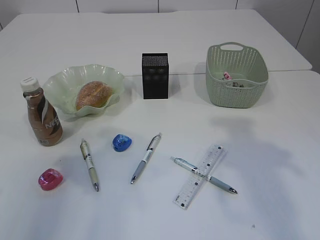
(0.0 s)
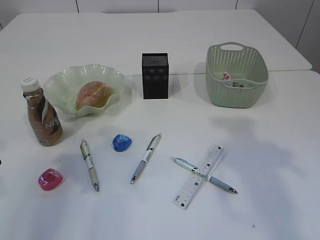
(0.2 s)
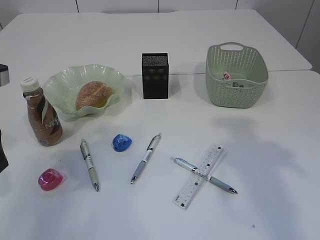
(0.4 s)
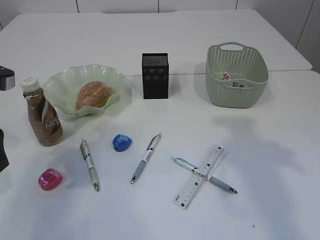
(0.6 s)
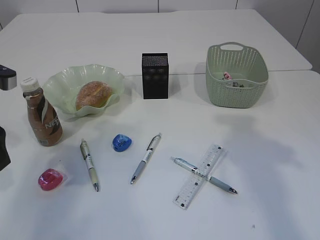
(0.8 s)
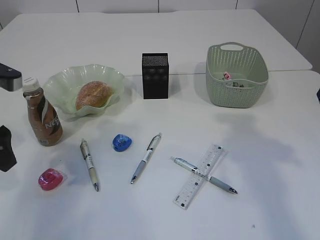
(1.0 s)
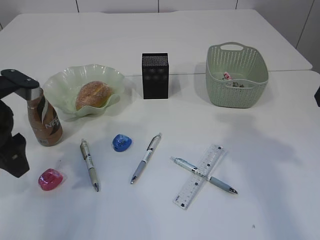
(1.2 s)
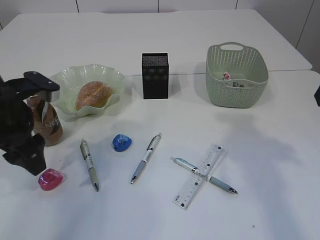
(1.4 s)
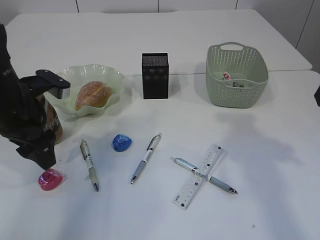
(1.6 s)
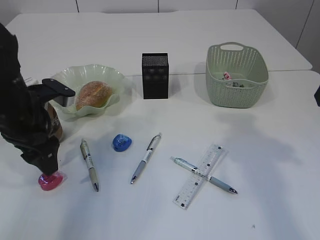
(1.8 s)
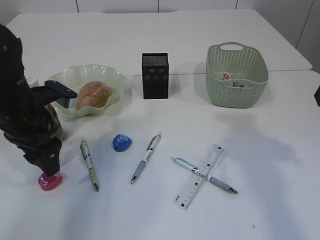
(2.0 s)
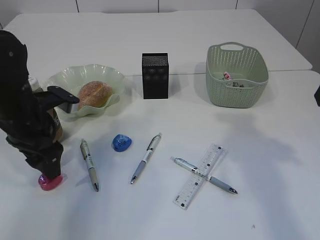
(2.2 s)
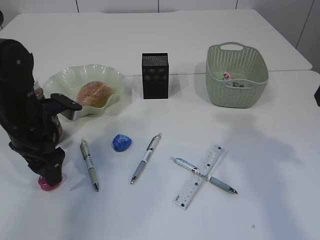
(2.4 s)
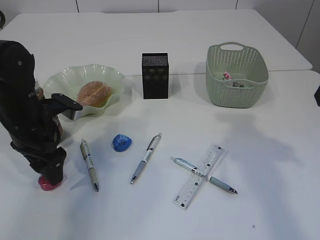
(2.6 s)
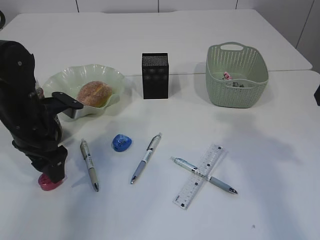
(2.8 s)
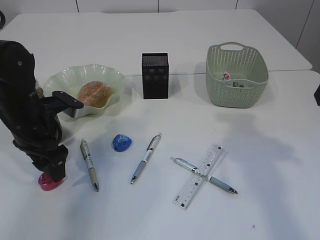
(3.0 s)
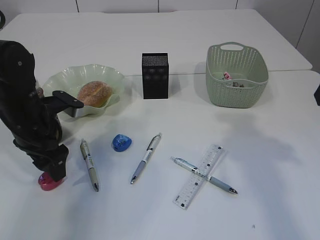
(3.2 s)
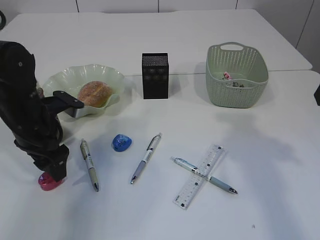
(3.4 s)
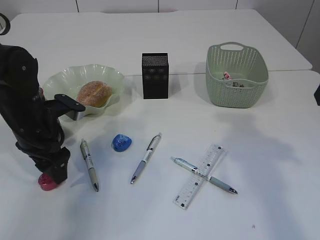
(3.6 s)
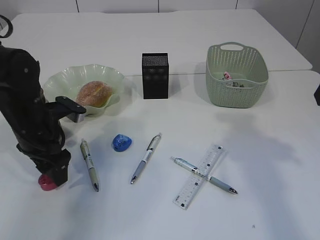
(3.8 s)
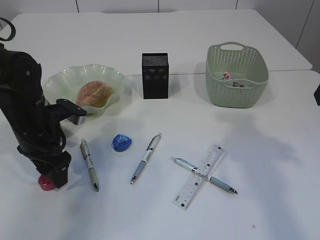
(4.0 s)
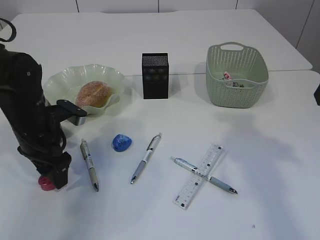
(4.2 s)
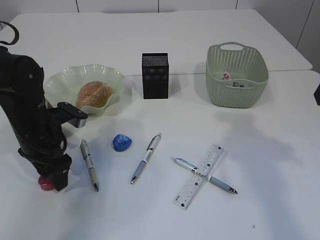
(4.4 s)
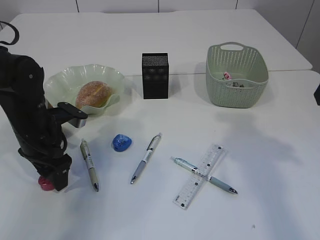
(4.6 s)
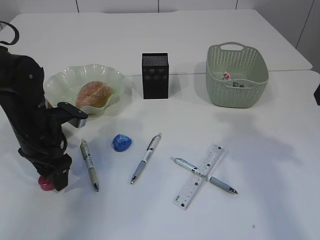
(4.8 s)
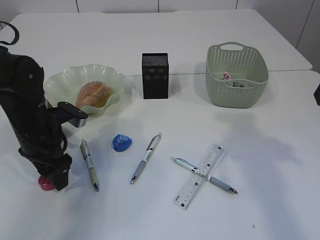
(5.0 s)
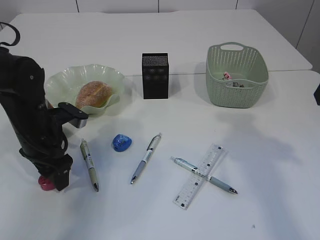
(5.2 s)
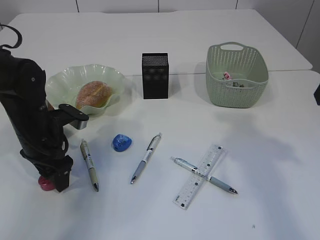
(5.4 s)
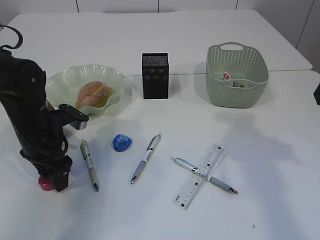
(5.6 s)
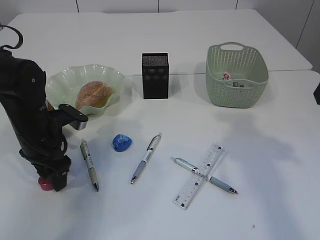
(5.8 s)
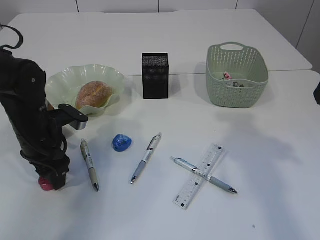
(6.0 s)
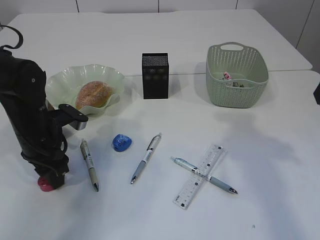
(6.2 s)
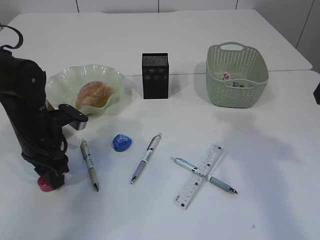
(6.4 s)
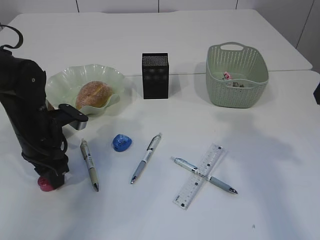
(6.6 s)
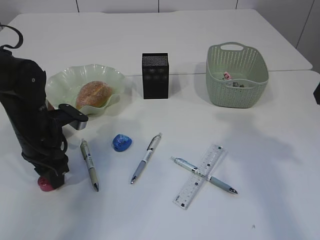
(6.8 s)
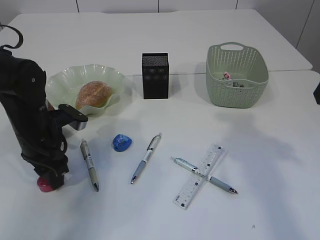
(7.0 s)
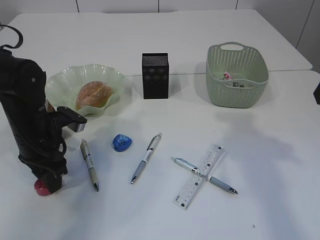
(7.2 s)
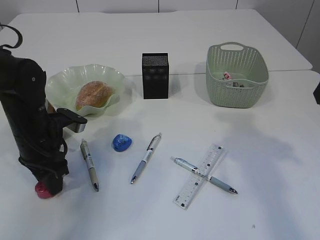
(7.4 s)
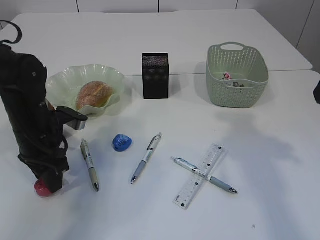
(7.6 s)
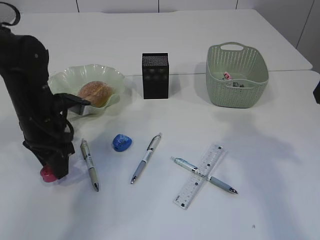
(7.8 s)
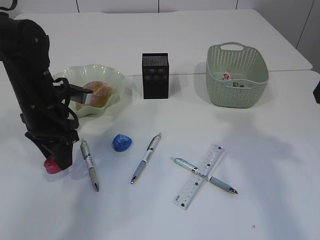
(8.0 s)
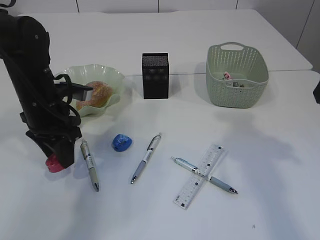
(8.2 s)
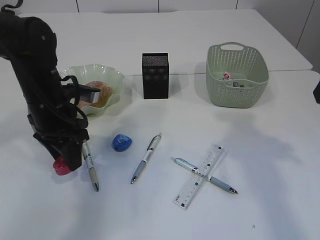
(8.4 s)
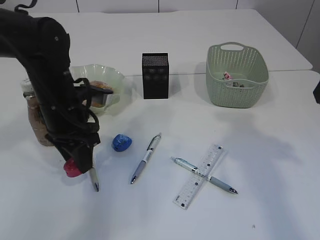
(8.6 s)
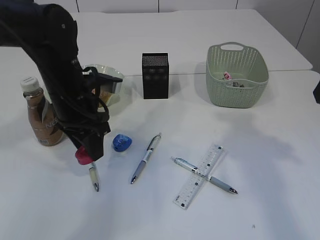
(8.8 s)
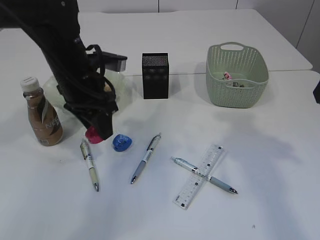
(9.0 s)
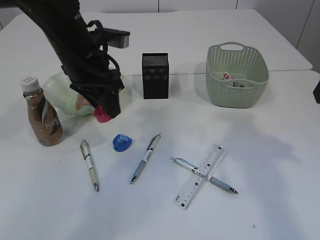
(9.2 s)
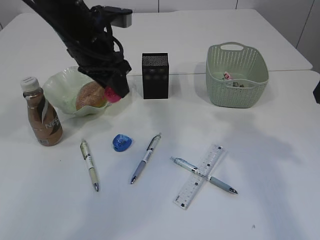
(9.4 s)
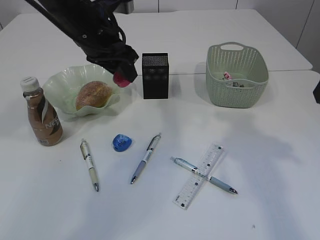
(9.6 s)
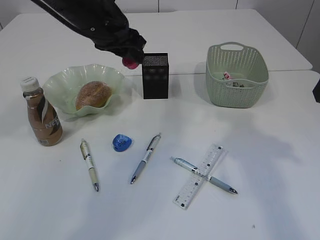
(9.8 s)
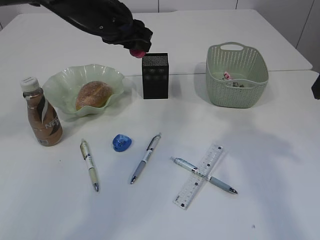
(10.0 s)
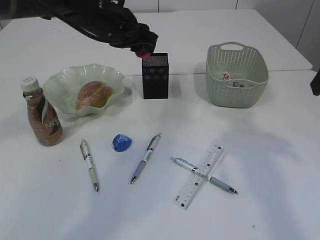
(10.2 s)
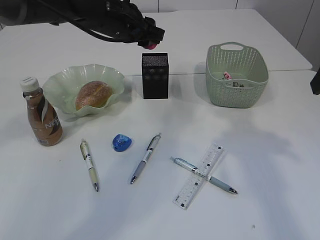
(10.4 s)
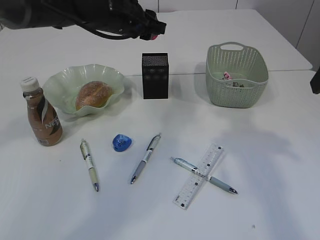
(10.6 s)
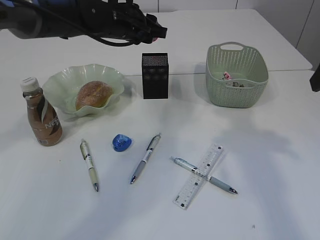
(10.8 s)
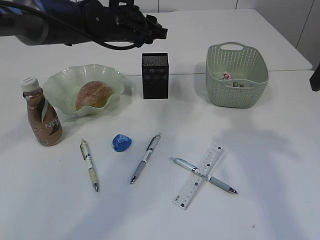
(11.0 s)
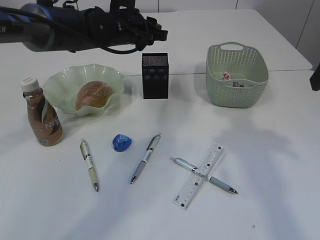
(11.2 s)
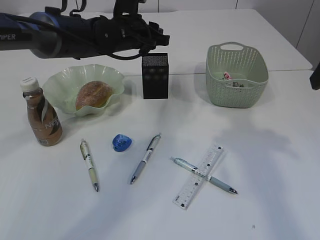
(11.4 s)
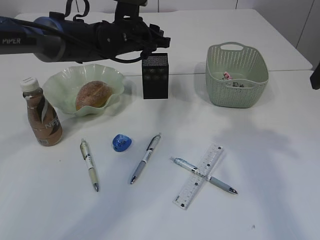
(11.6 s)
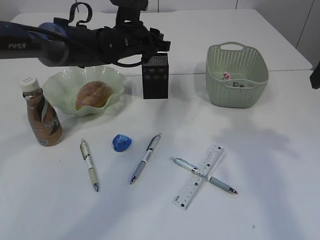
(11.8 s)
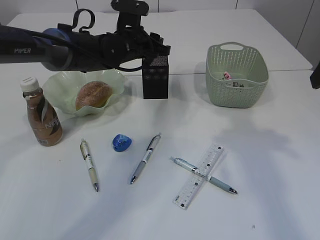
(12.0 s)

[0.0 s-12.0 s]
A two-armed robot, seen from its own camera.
Step, 0.0 to 8.8 s: Pick up the red pencil sharpener.
0.0 to 1.6 s: The left gripper heads forward, downward and to the right, covering some 15 cm.
1.6 to 3.0 s: The left gripper is displaced downward by roughly 5 cm.
3.0 to 4.4 s: There are only small adjustments of the grippers.
4.4 to 6.0 s: Both grippers stay put.
6.0 to 7.6 s: The left gripper closes its fingers.
7.6 to 9.0 s: The left gripper travels upward and to the right by about 10 cm.
9.0 to 10.4 s: The left gripper shifts approximately 10 cm forward and to the right.
10.4 to 12.0 s: The left gripper goes approximately 5 cm downward.

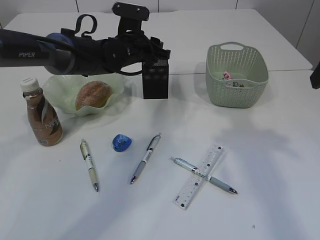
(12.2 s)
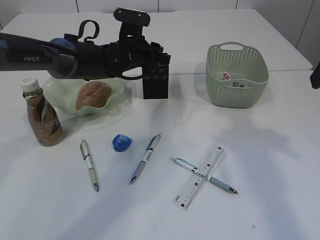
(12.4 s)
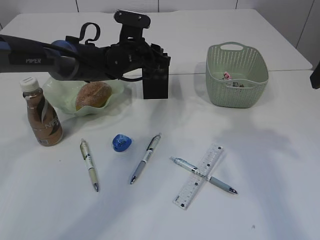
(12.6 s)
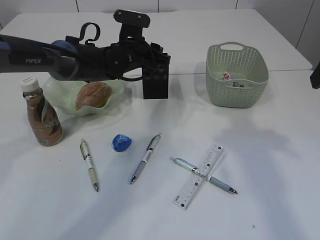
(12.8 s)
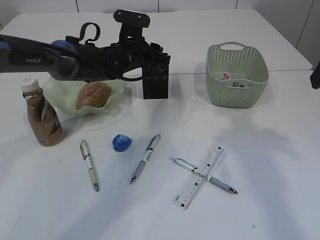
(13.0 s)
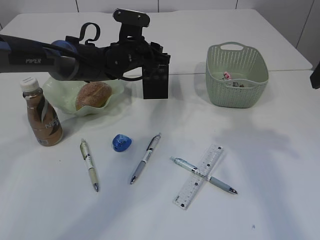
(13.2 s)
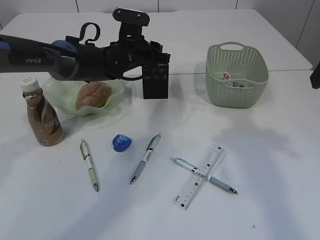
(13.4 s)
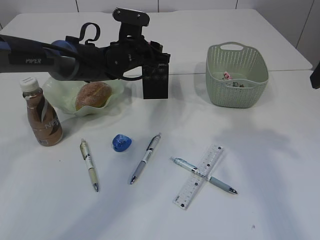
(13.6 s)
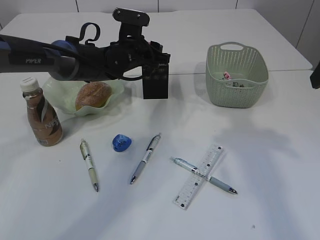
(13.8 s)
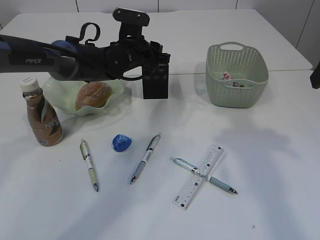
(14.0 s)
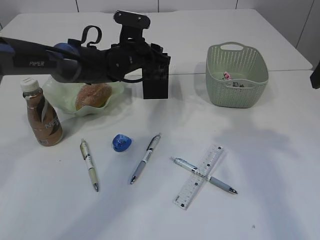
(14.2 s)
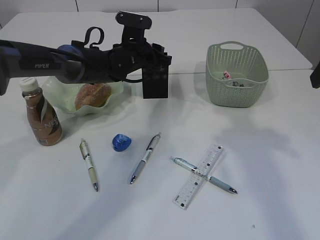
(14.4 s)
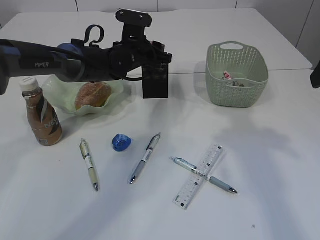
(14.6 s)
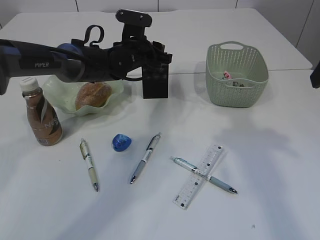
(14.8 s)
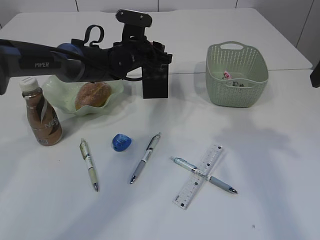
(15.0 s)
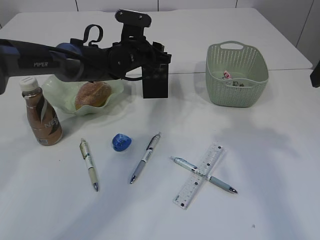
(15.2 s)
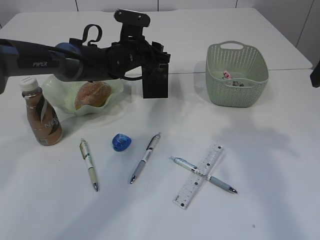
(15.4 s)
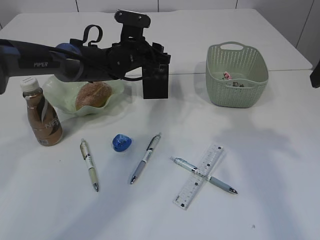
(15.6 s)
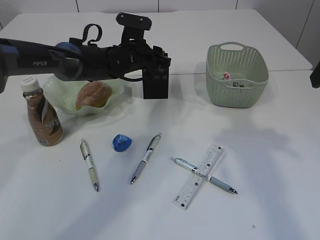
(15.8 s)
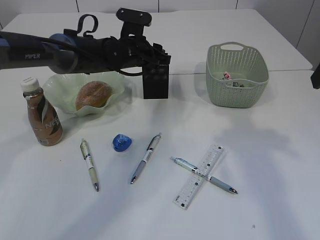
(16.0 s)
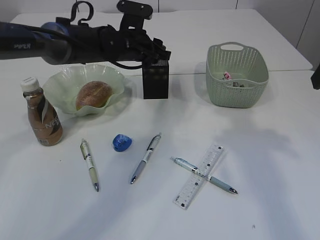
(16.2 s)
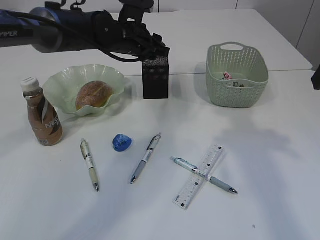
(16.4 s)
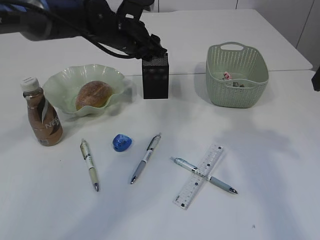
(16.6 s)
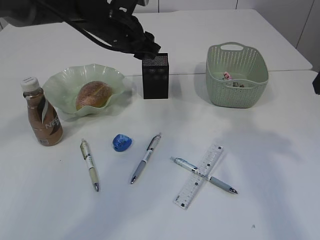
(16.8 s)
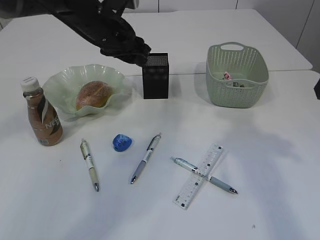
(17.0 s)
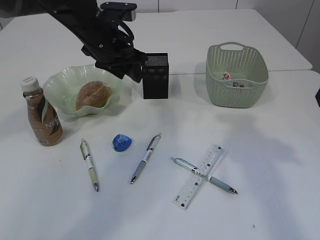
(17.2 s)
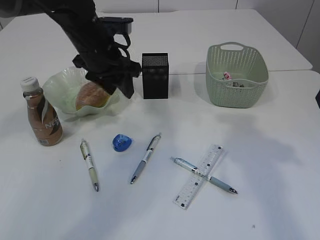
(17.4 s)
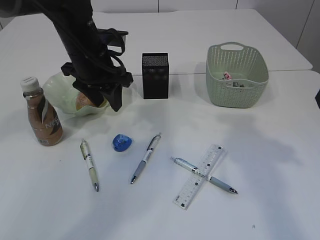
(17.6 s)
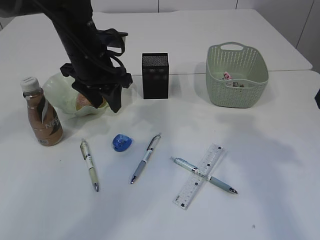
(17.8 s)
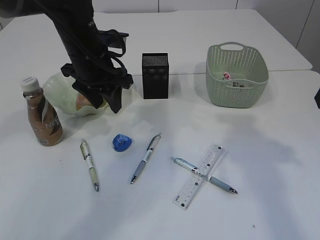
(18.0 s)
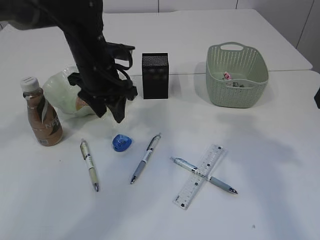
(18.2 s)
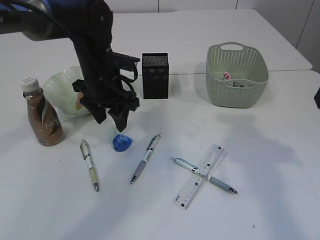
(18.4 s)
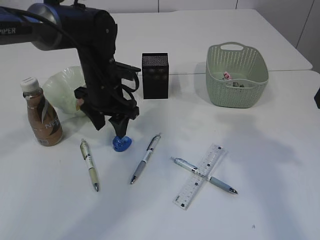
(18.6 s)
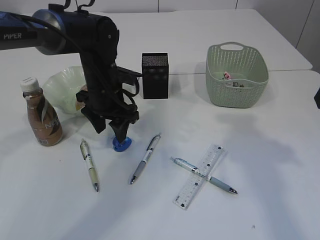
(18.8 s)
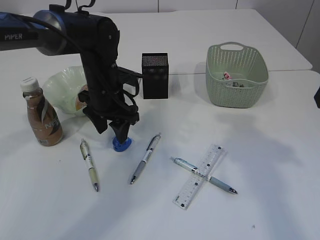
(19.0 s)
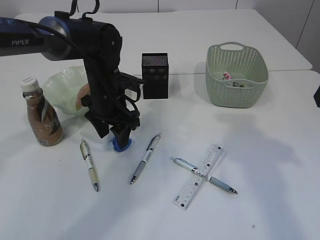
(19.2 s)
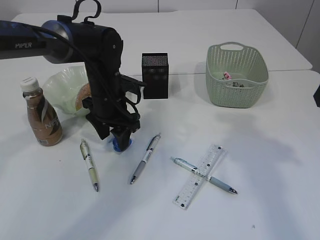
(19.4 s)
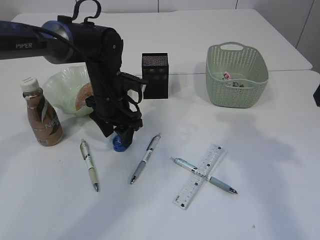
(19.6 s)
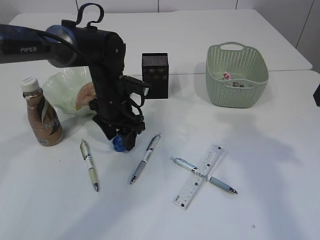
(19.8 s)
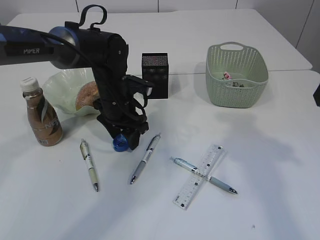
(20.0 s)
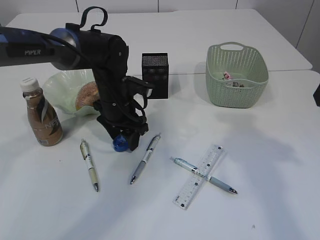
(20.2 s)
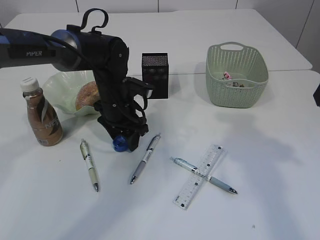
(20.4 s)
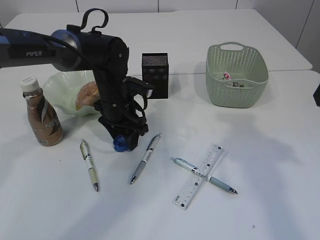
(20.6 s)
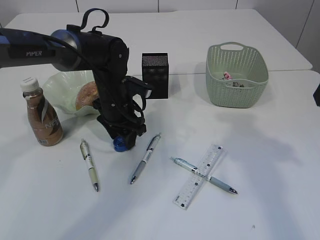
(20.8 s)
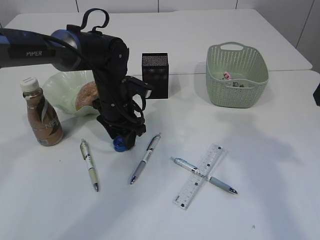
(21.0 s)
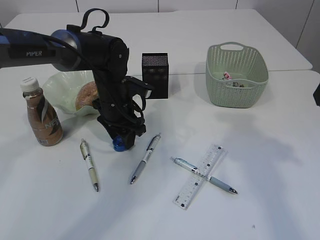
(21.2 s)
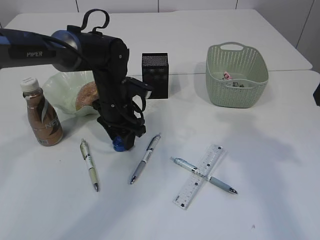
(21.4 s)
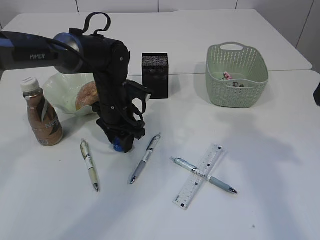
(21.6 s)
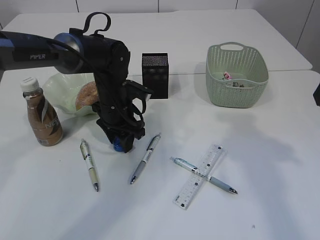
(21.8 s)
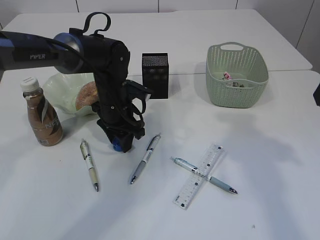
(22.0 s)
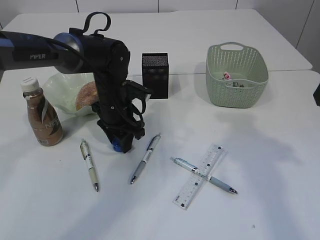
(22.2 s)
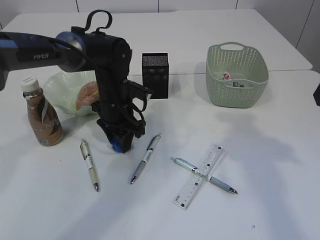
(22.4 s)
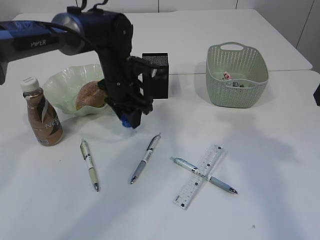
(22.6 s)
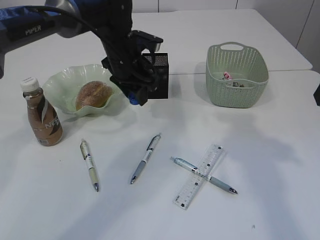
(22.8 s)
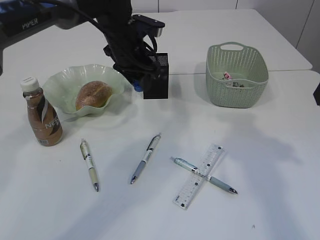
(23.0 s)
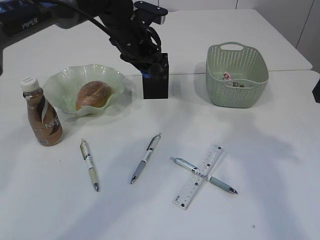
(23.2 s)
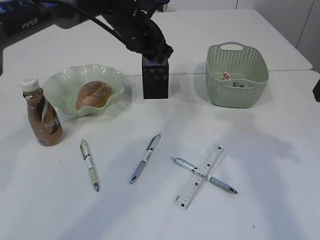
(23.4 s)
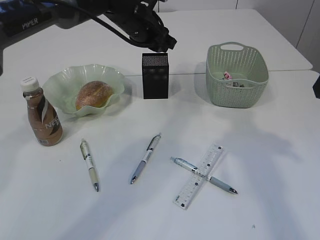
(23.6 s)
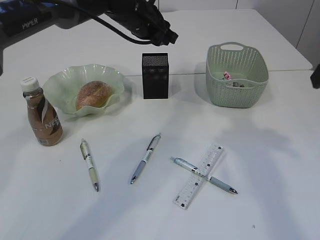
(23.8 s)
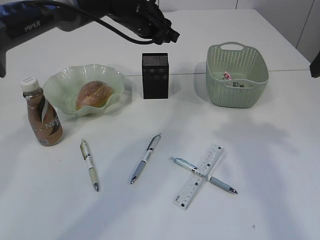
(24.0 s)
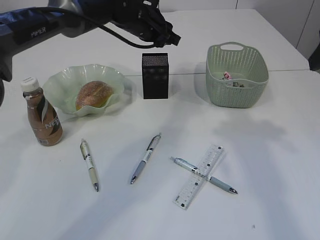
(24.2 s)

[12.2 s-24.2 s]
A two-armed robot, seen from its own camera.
Step, 12.2 to 17.2 s: Place the red pencil sharpener into the pen holder.
Step, 17.4 to 22.8 s: Pick up the blue pencil sharpener.
12.2 to 13.8 s: There are only small adjustments of the grippers.
13.8 to 15.2 s: Neither gripper changes place.
15.2 to 16.6 s: The left gripper goes approximately 5 cm upward.
16.6 to 18.2 s: The left gripper travels backward by approximately 5 cm.
18.2 to 19.8 s: The left gripper shifts roughly 10 cm downward.
19.8 to 21.2 s: Both grippers stay about where they are.
21.2 to 22.6 s: The grippers make only small movements.
22.6 to 24.2 s: The left gripper is displaced upward and forward by some 10 cm.
